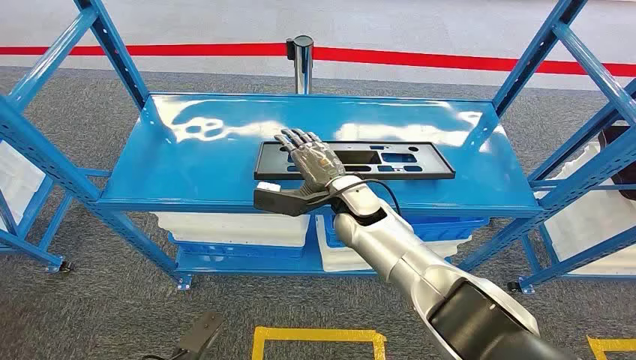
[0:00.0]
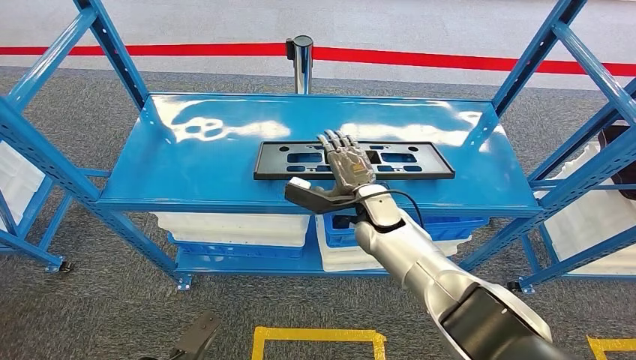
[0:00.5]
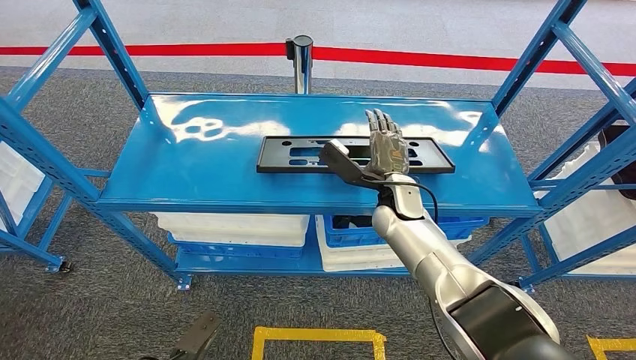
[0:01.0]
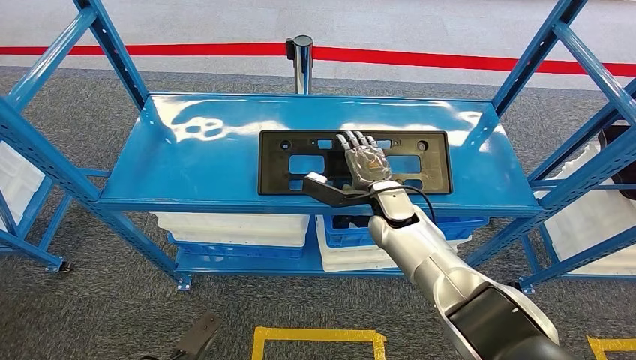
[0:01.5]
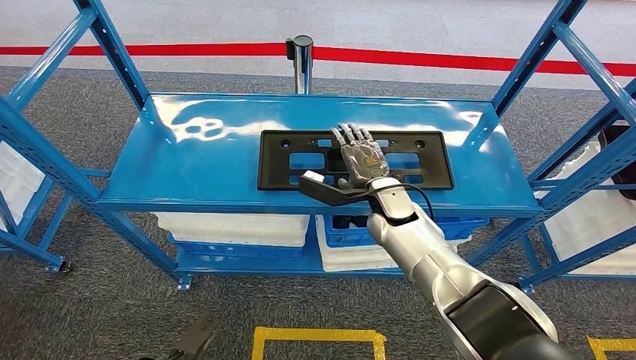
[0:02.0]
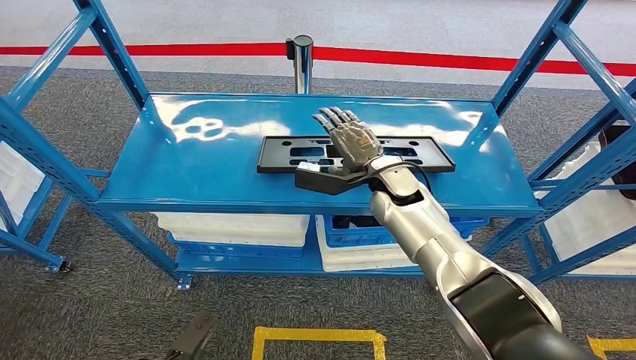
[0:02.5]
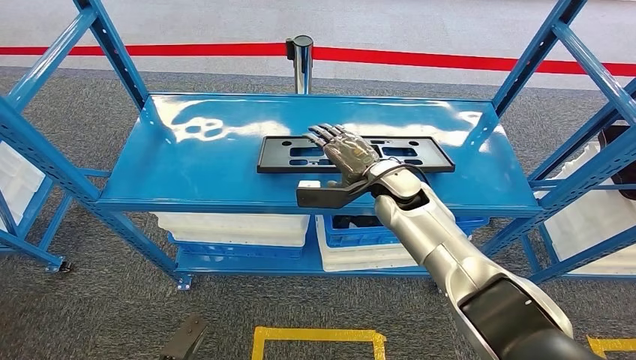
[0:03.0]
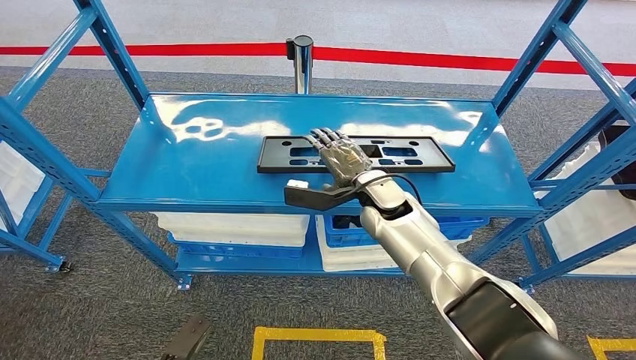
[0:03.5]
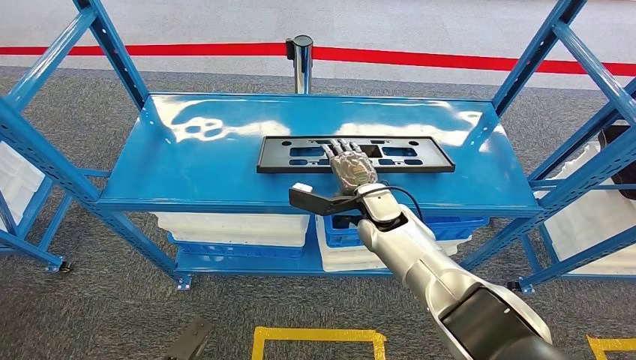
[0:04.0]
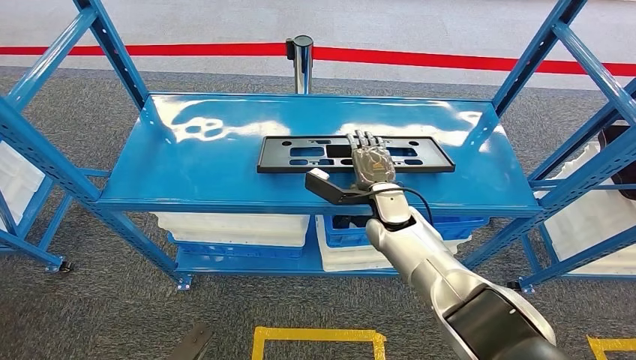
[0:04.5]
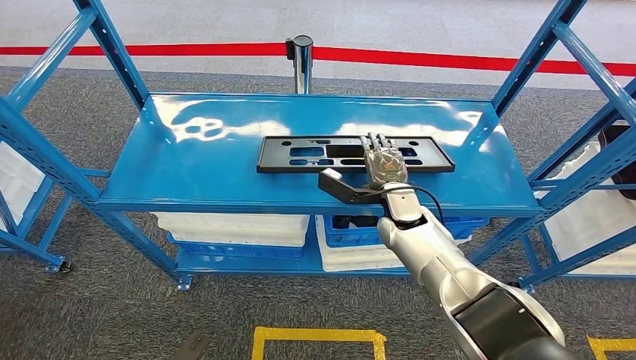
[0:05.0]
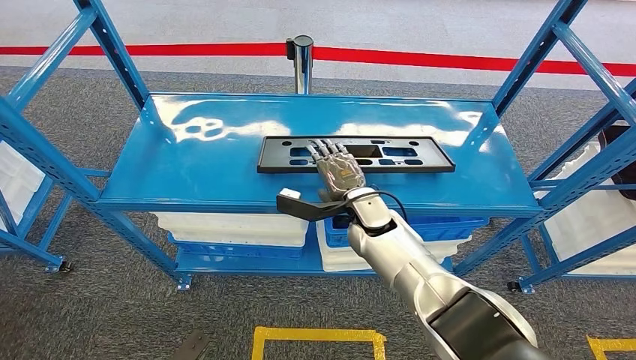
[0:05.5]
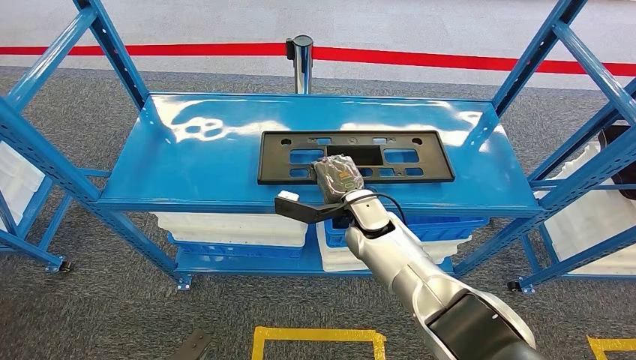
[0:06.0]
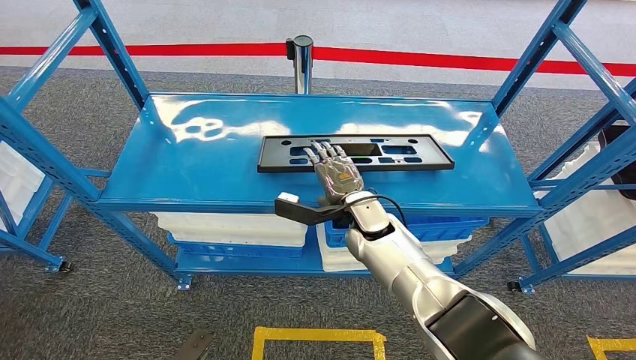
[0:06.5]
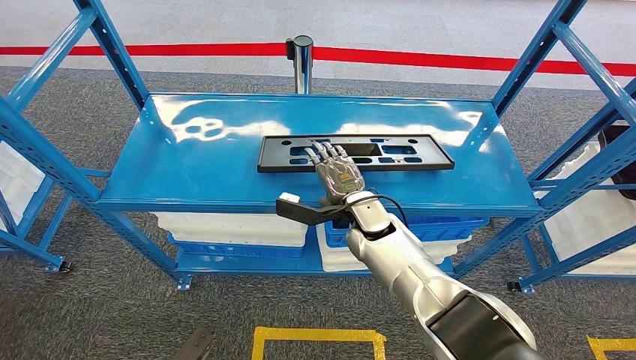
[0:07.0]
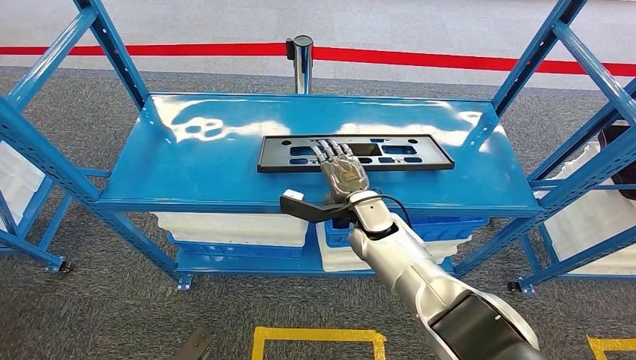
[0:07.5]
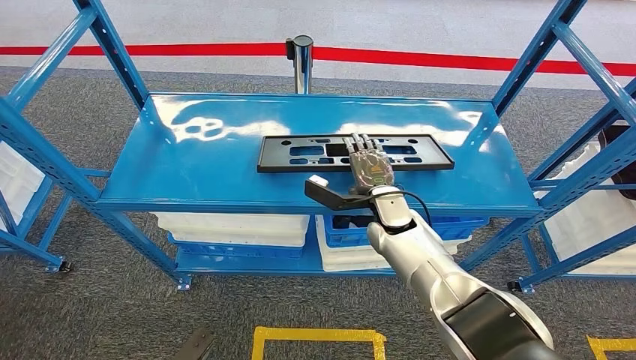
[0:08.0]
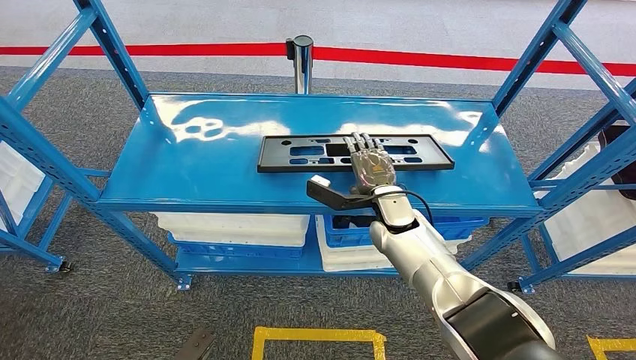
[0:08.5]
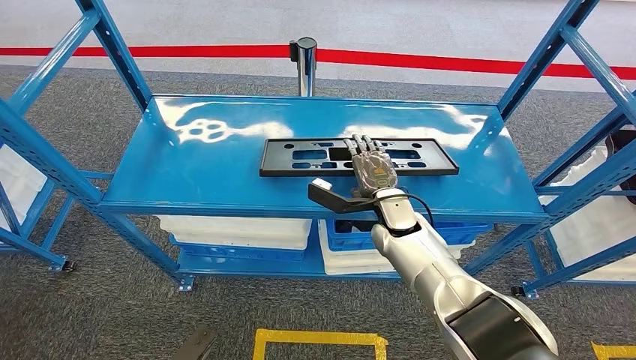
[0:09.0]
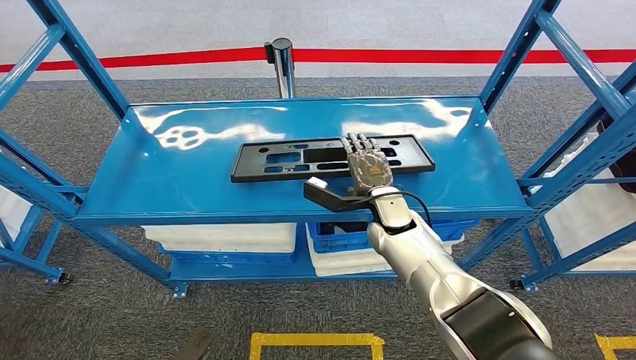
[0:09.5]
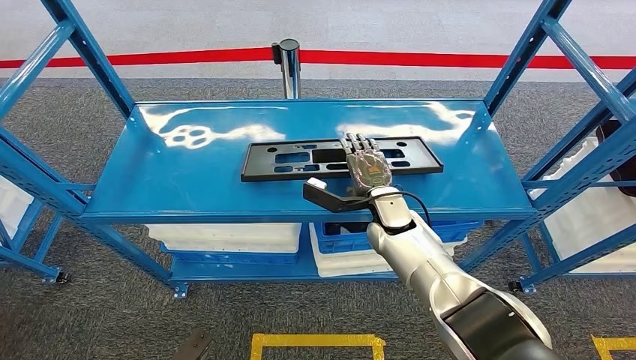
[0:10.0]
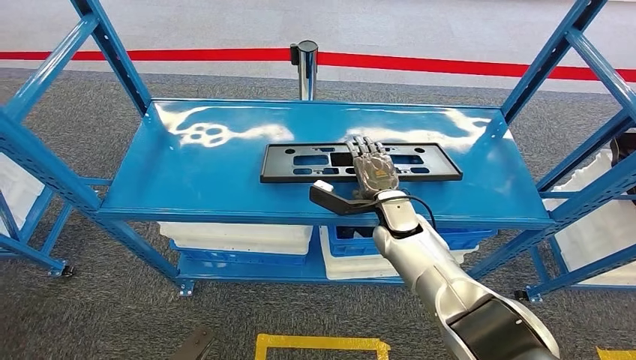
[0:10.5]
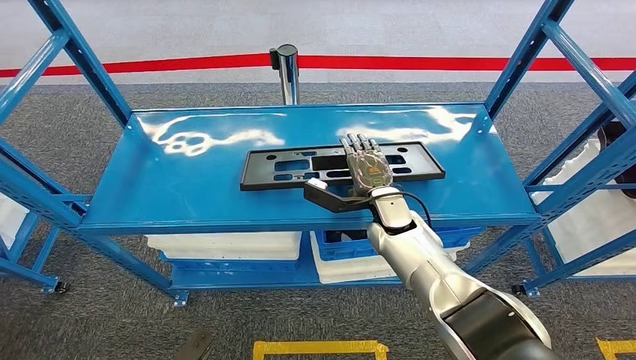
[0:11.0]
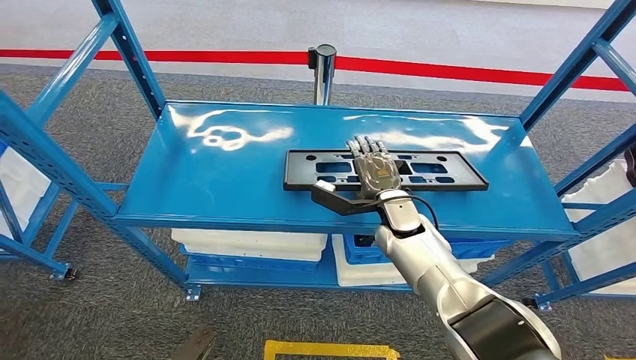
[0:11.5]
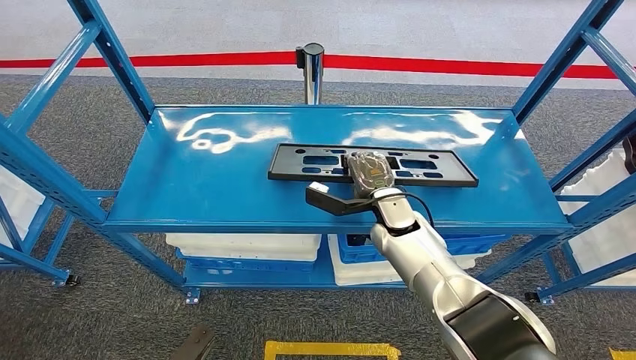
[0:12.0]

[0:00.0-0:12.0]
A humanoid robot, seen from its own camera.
0:04.0 to 0:08.0: The hands stay close to where they were, moving slightly.

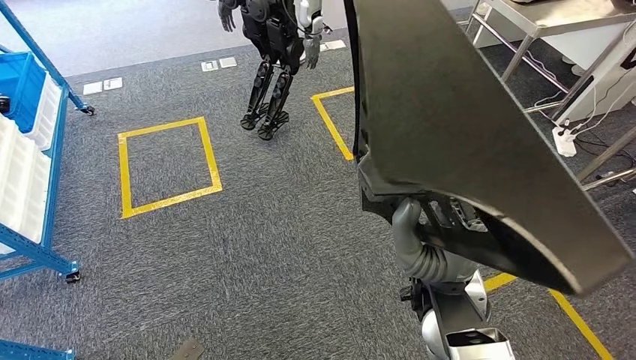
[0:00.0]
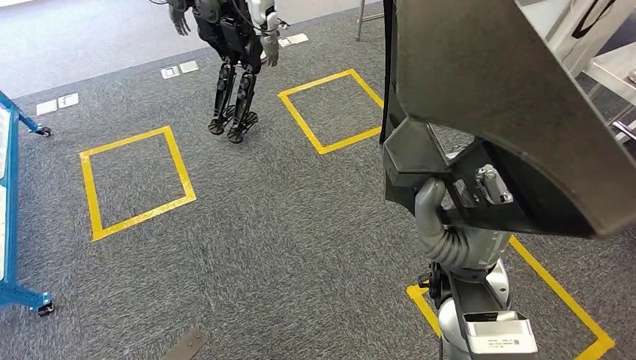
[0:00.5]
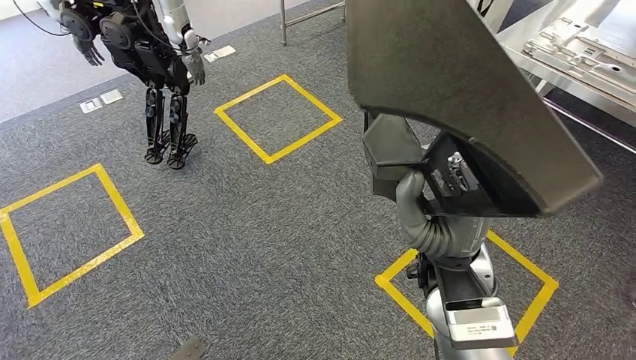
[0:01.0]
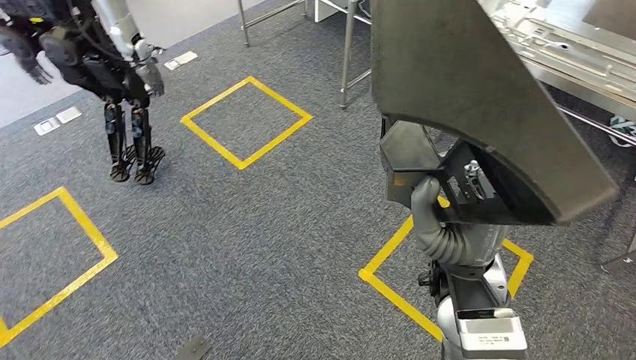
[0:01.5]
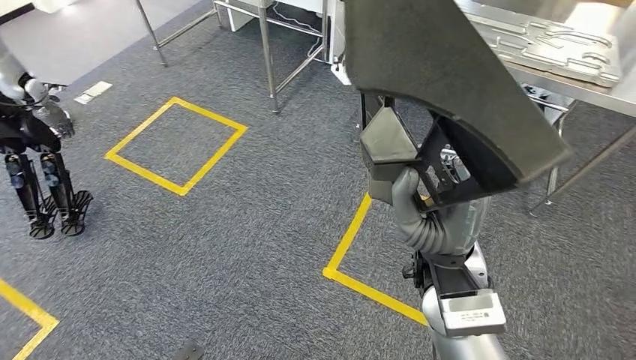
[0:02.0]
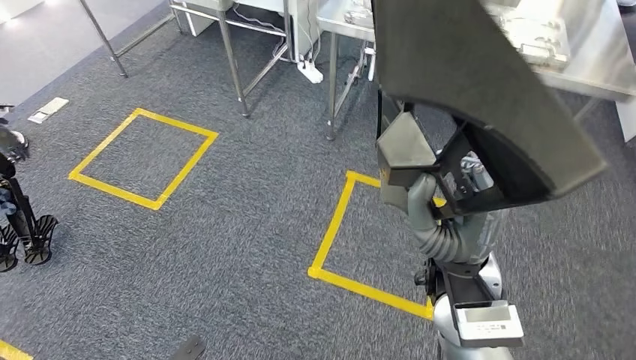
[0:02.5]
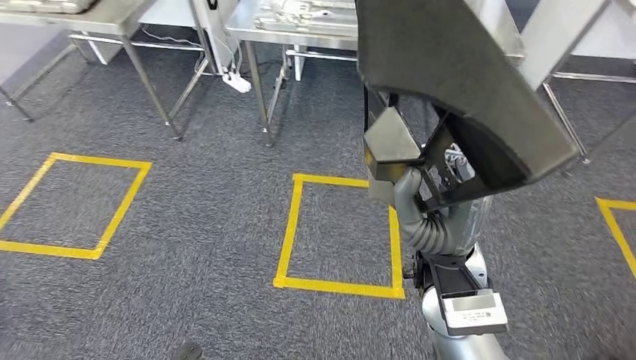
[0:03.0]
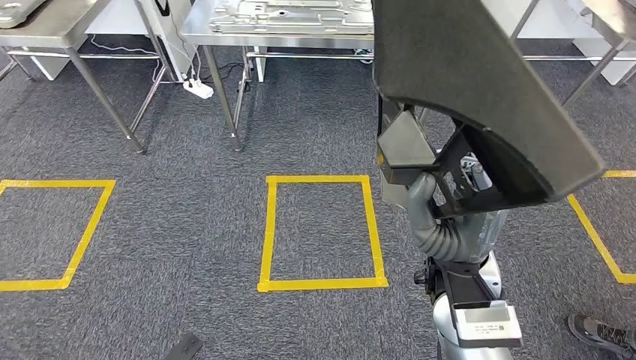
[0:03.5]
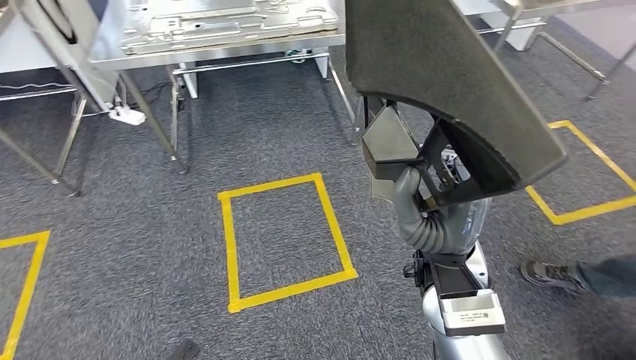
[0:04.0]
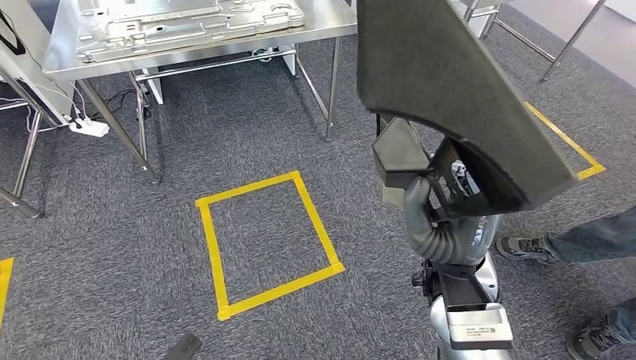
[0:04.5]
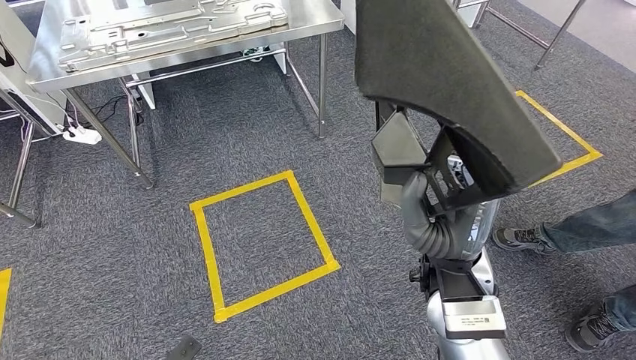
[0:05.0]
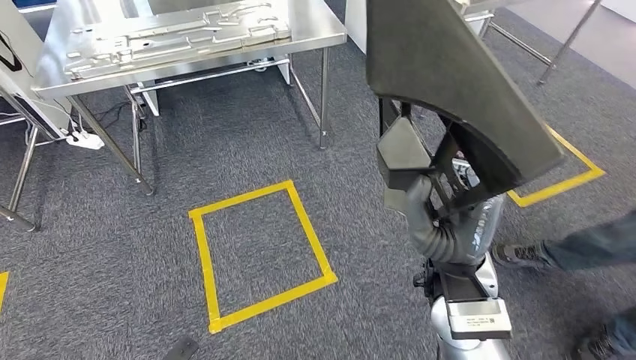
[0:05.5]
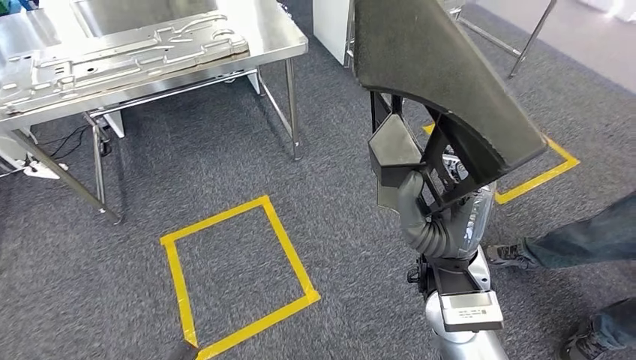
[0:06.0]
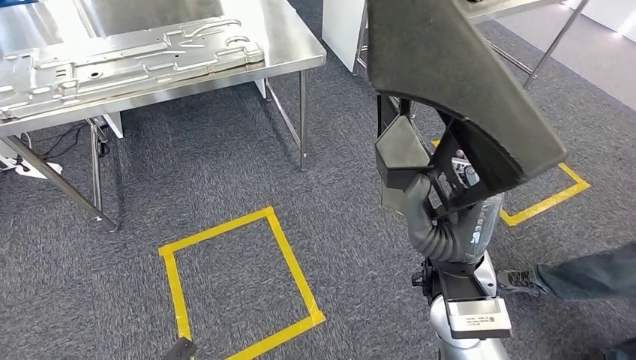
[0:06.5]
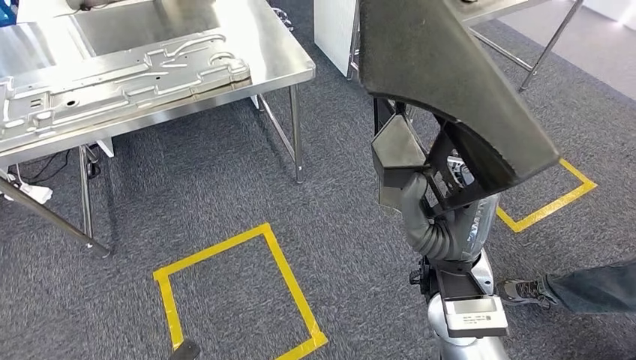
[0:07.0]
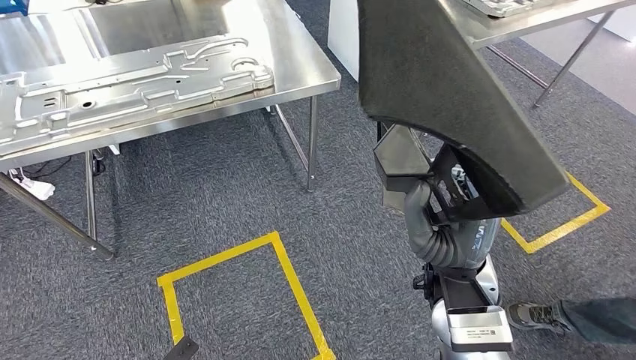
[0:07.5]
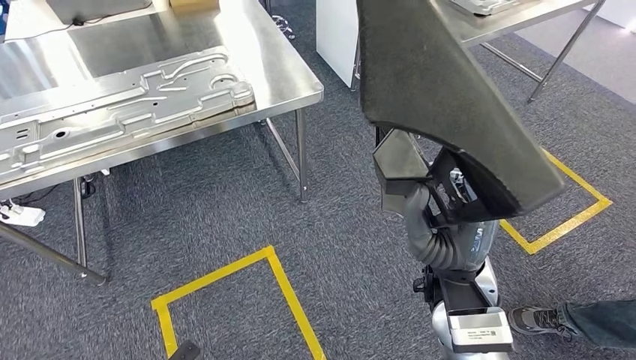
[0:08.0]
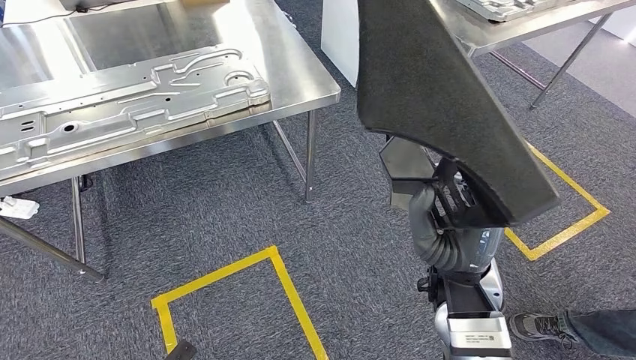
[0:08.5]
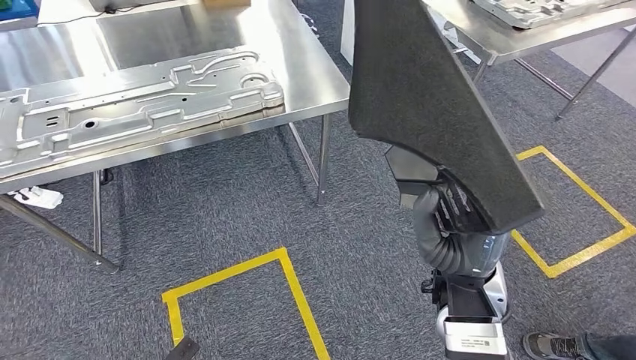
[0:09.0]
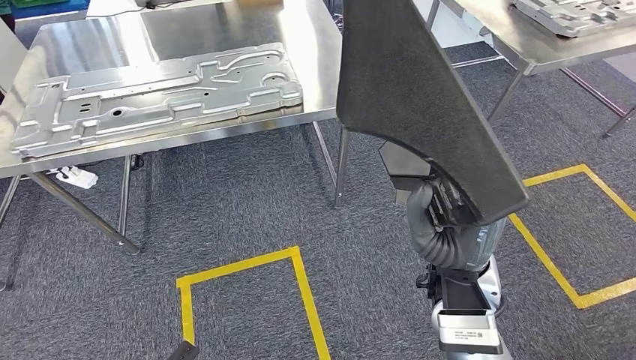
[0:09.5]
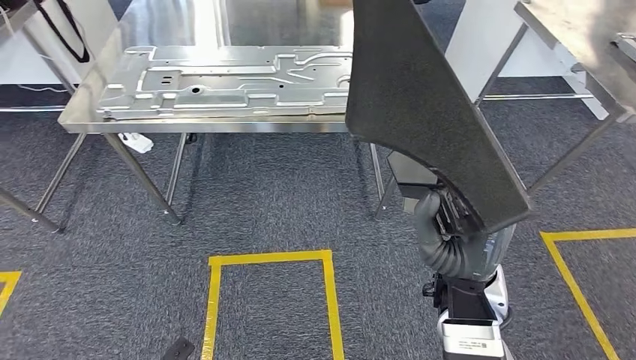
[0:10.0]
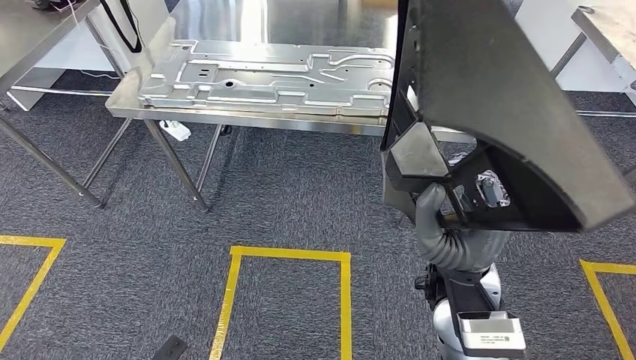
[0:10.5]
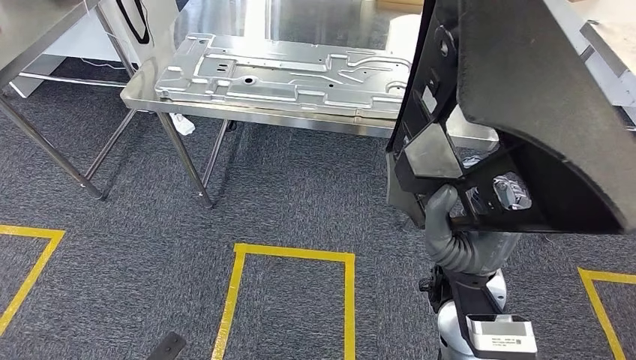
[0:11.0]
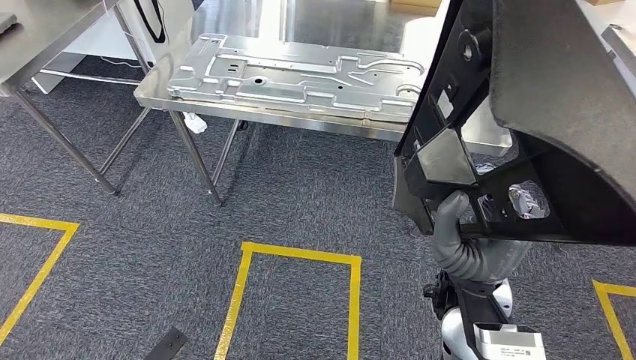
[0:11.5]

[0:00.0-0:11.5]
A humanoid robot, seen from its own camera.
Step, 0:00.0 to 0:11.0: Move the large material to the workbench.
